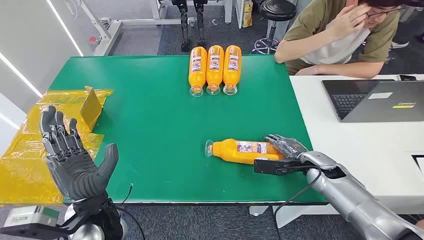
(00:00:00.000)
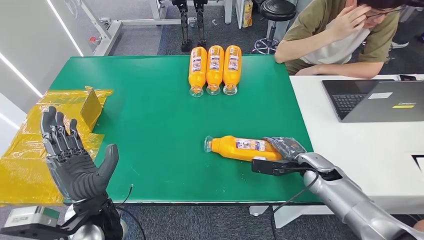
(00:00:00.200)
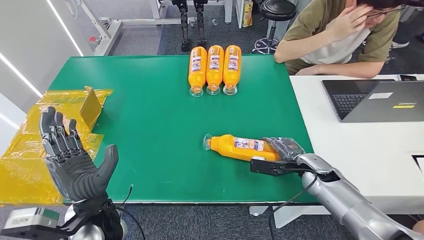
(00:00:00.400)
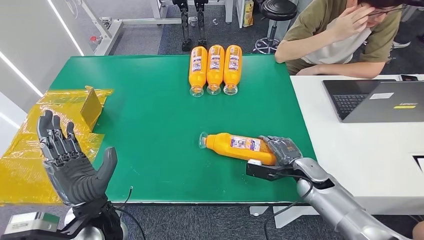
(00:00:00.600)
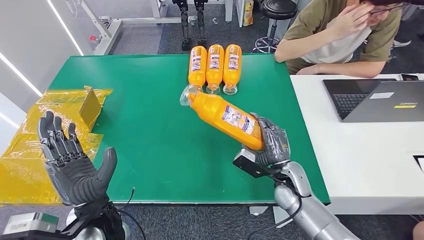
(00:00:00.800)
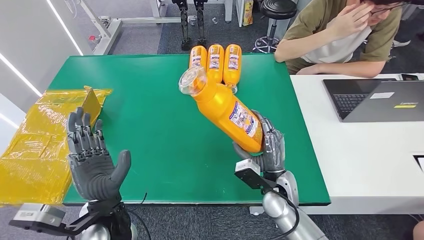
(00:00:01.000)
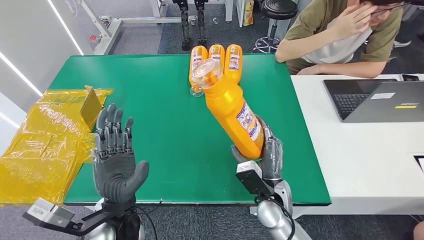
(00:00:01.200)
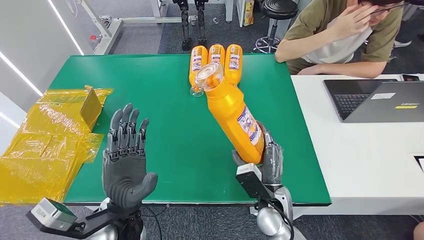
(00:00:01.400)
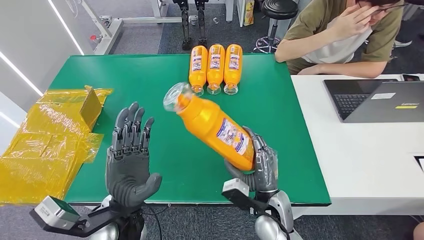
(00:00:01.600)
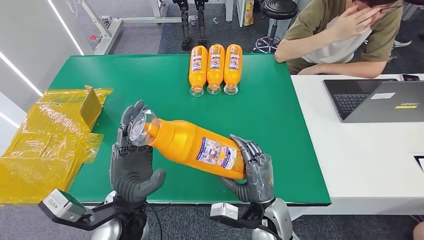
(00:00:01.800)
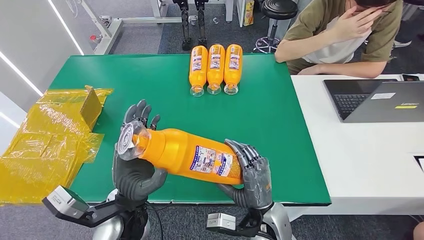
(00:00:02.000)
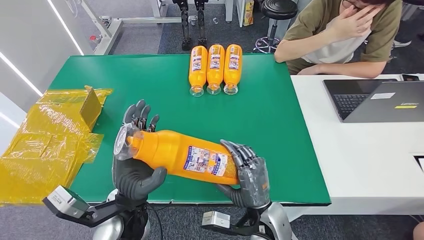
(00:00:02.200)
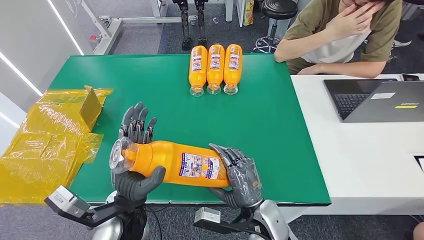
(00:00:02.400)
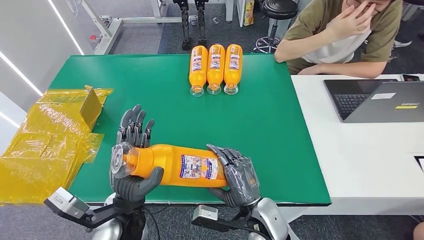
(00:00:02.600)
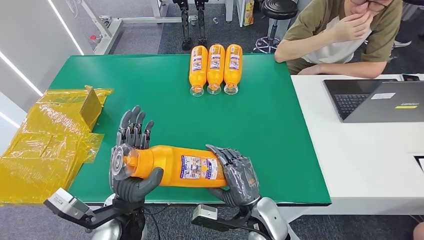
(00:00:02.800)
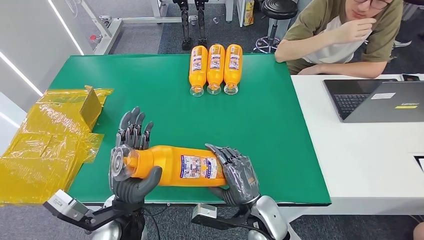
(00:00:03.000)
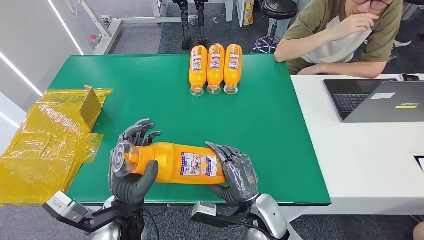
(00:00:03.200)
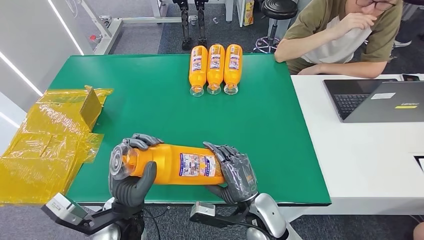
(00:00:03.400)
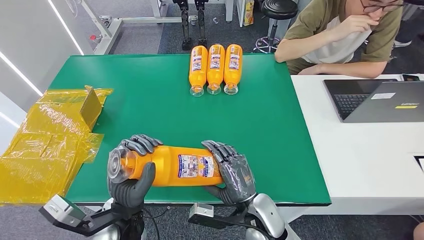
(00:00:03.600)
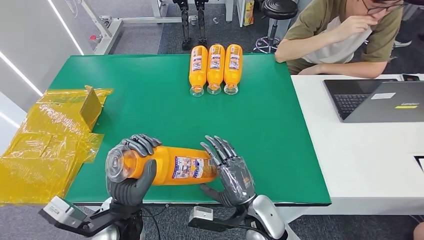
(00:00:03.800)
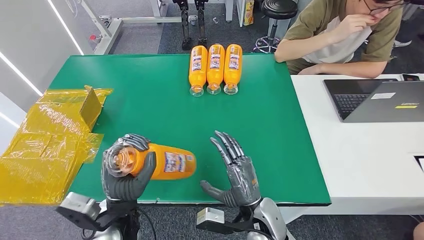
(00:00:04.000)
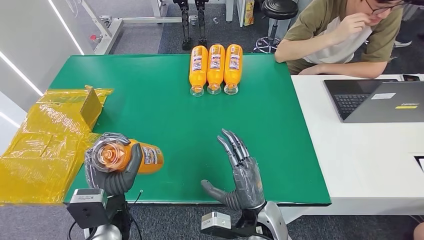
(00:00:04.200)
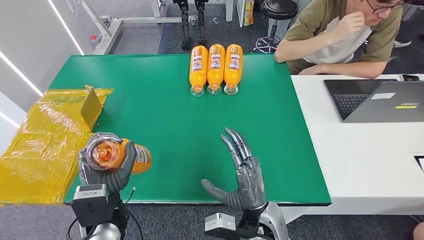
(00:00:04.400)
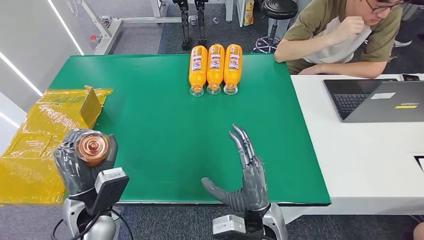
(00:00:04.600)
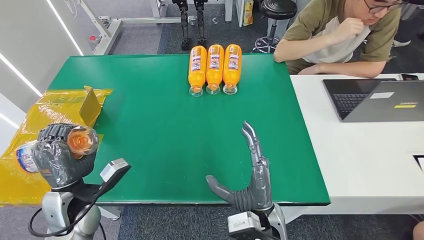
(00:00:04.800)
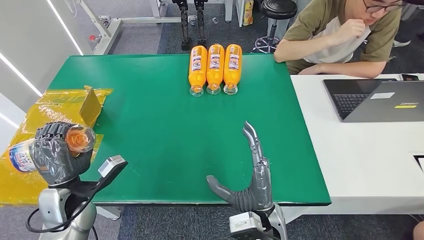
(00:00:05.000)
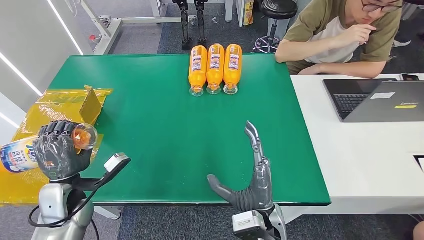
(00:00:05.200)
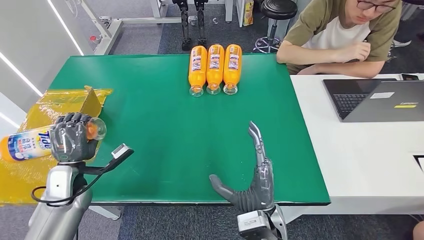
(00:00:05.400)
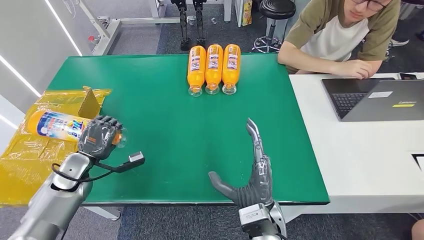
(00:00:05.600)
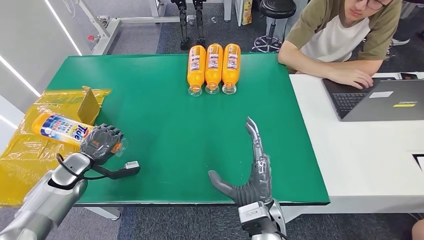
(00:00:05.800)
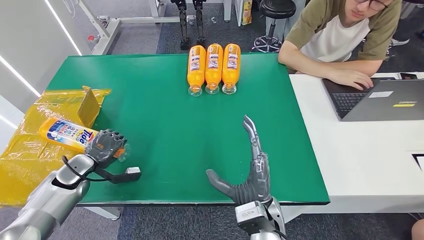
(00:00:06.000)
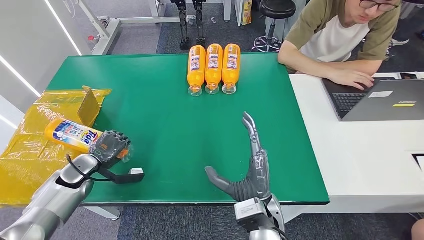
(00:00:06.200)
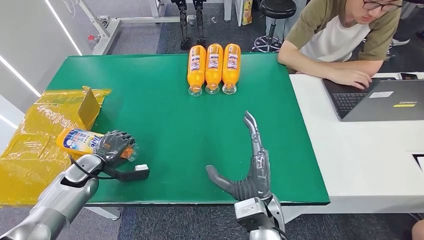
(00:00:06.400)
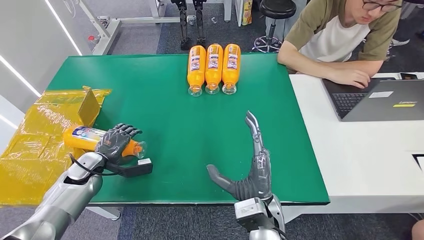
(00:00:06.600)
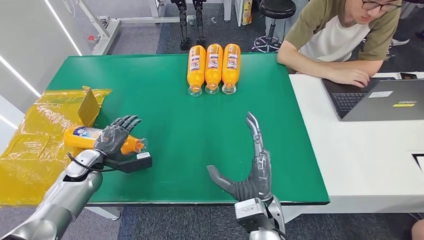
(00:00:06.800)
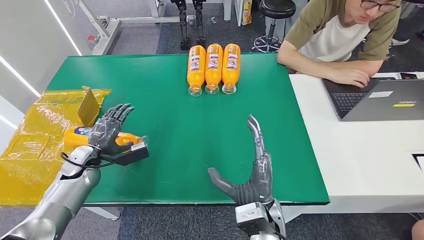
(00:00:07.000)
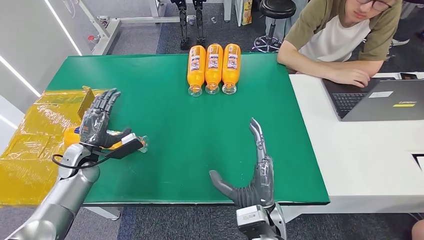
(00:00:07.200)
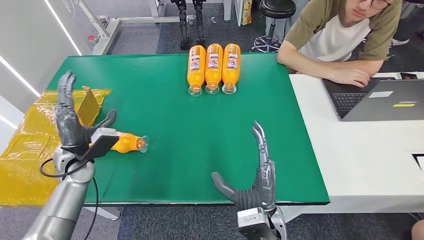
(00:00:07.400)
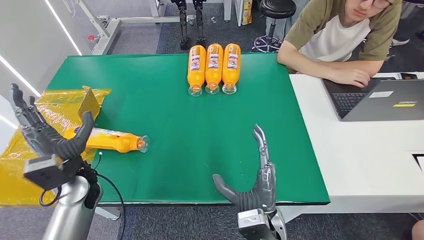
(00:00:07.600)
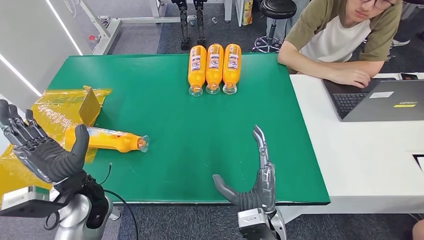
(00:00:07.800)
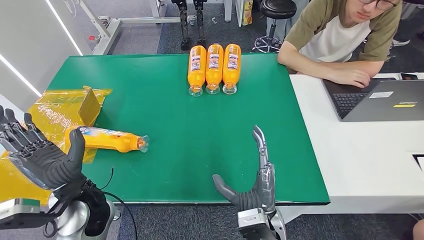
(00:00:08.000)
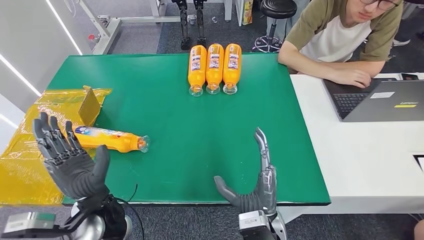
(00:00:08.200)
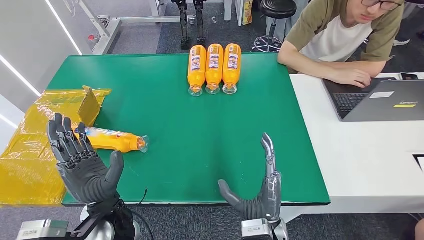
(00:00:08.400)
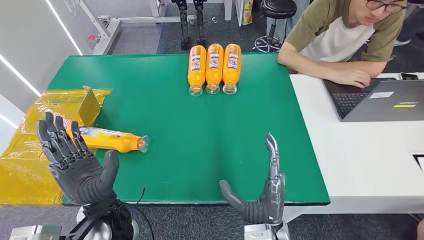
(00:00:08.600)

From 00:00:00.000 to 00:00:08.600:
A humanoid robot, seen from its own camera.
Step, from 00:00:00.000 to 00:00:01.400: Pick up the bottle from the table.
Step, from 00:00:01.600 to 00:00:08.400: Turn the bottle to the front side.
From 00:00:01.400 to 00:00:02.800: The right hand ends up about 5 cm from where it was.
From 00:00:05.800 to 00:00:07.200: The left hand is displaced to the right by roughly 5 cm.
From 00:00:07.200 to 00:00:08.600: The left hand is displaced to the right and backward by some 25 cm.
